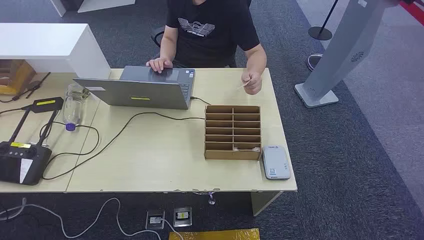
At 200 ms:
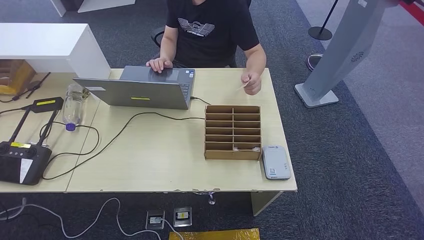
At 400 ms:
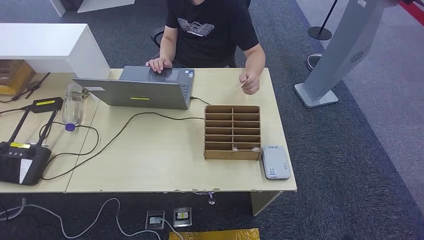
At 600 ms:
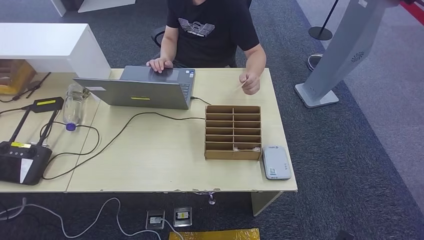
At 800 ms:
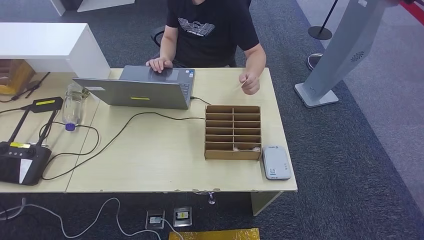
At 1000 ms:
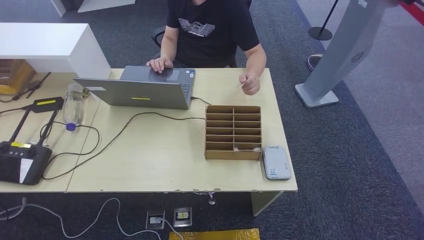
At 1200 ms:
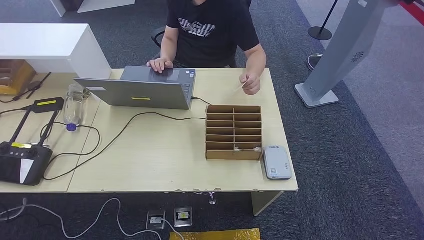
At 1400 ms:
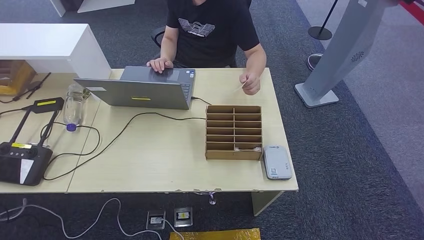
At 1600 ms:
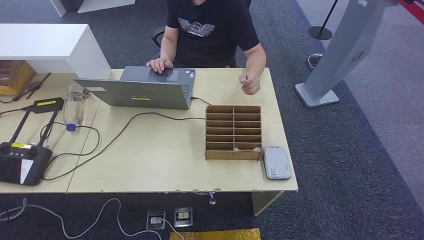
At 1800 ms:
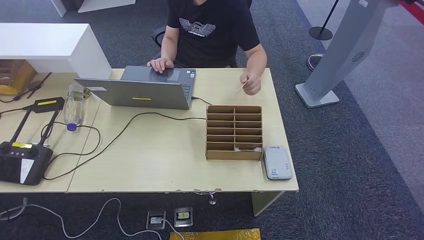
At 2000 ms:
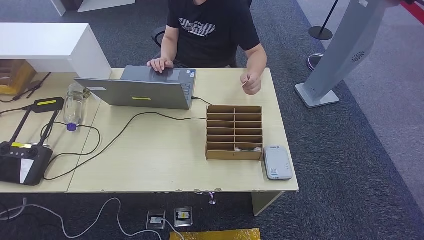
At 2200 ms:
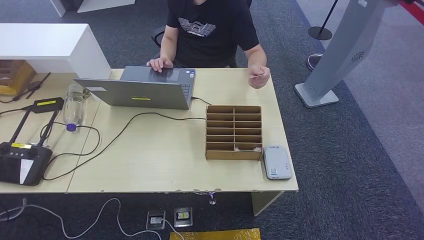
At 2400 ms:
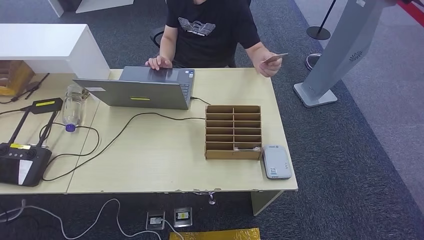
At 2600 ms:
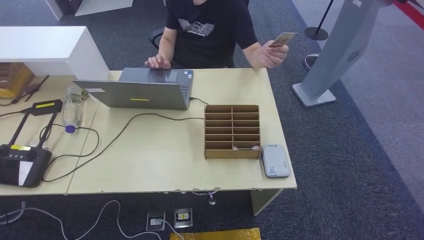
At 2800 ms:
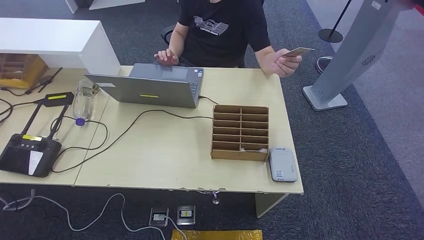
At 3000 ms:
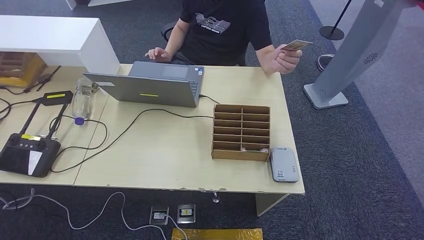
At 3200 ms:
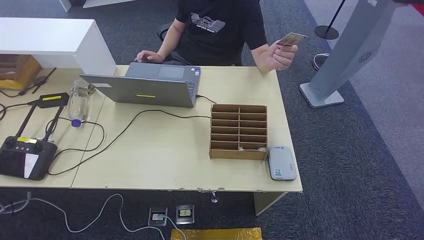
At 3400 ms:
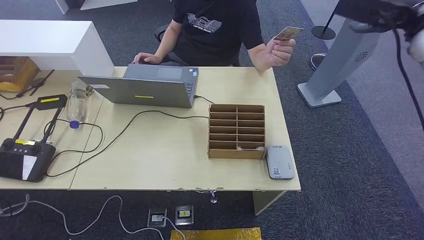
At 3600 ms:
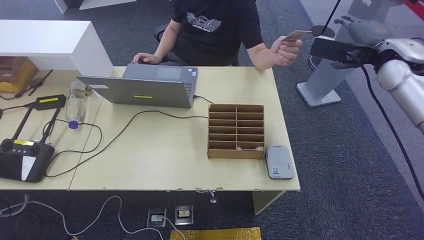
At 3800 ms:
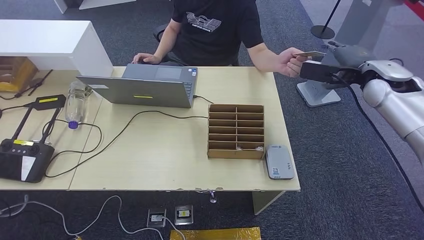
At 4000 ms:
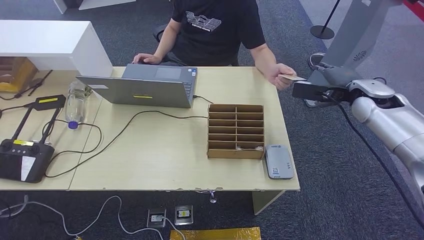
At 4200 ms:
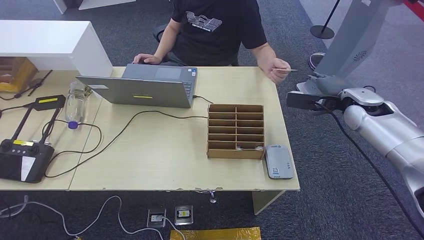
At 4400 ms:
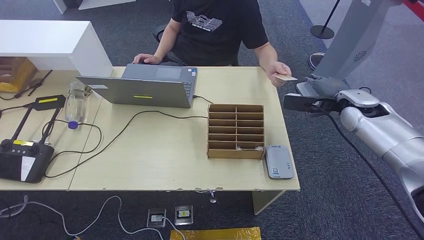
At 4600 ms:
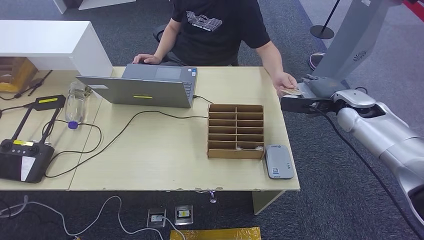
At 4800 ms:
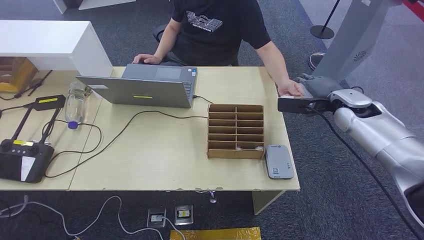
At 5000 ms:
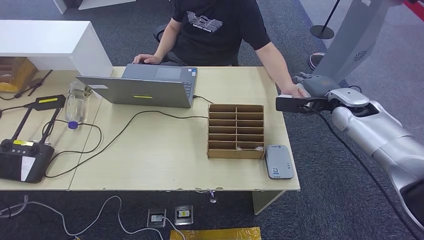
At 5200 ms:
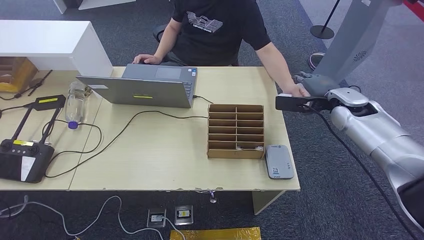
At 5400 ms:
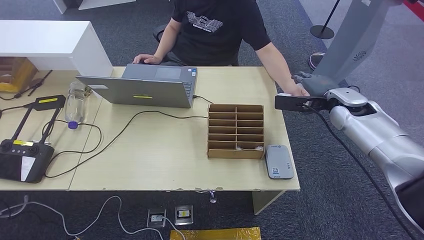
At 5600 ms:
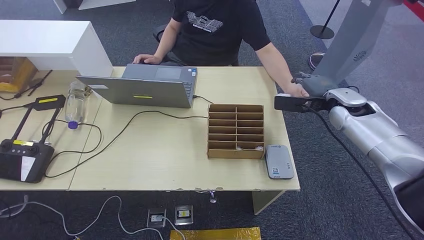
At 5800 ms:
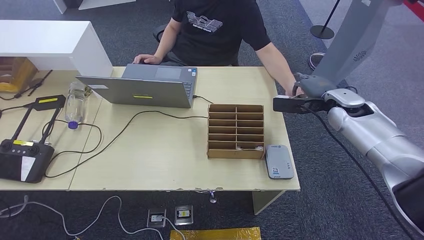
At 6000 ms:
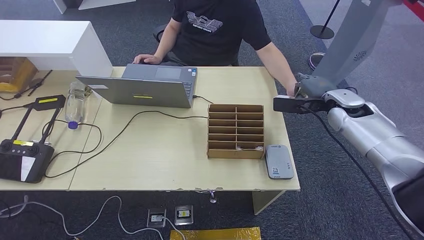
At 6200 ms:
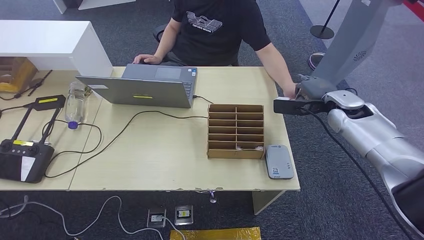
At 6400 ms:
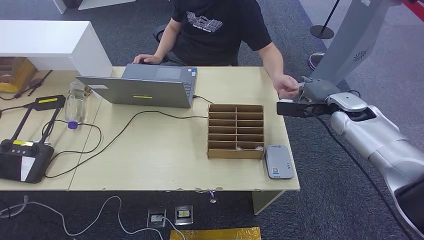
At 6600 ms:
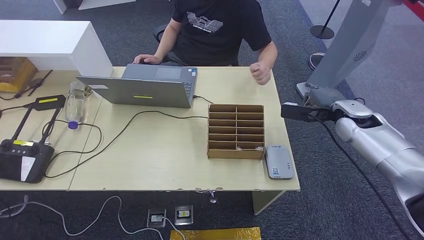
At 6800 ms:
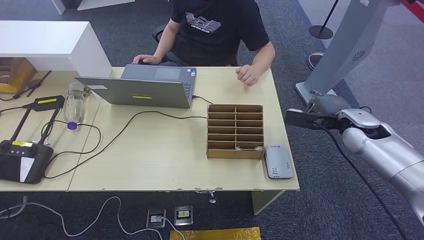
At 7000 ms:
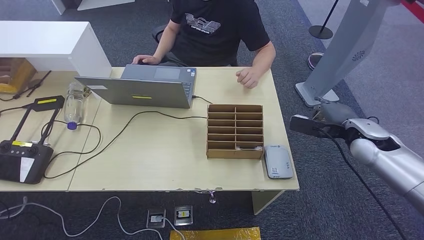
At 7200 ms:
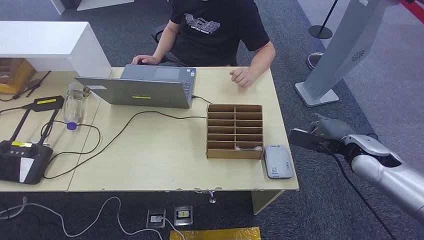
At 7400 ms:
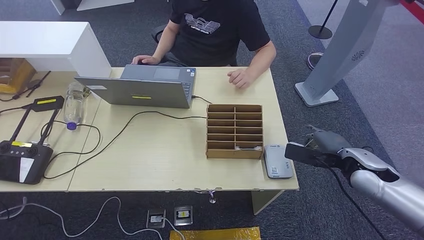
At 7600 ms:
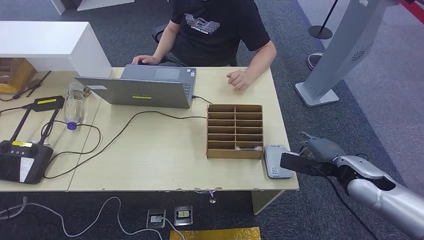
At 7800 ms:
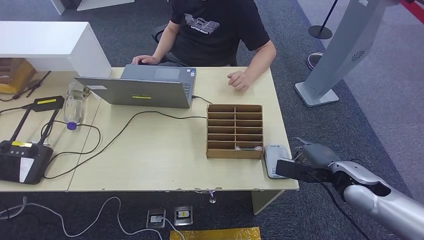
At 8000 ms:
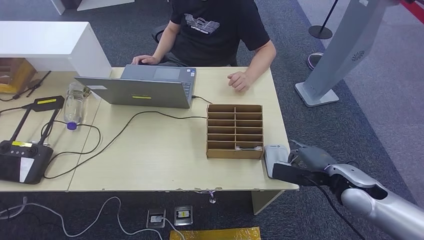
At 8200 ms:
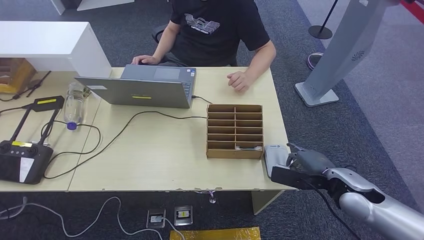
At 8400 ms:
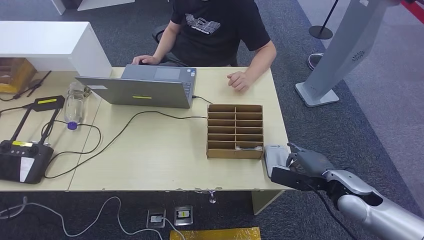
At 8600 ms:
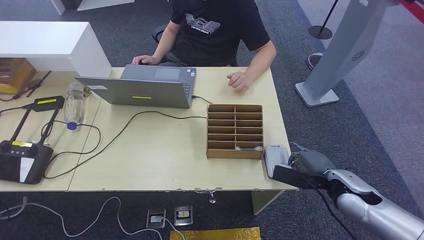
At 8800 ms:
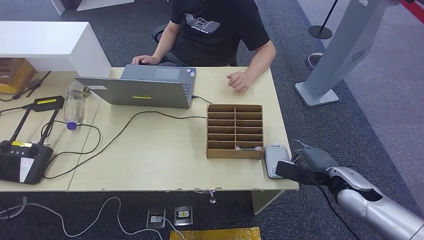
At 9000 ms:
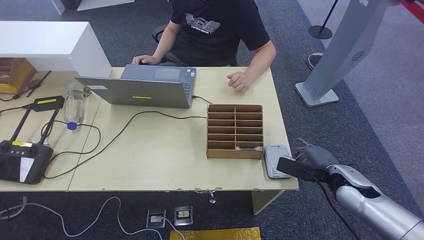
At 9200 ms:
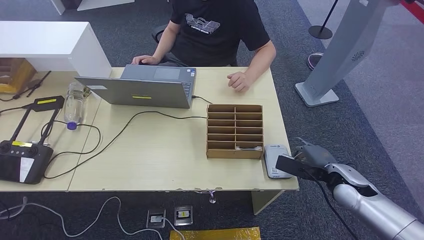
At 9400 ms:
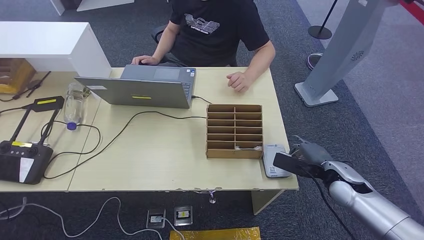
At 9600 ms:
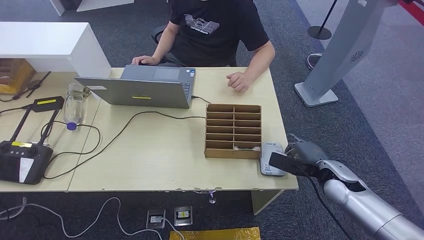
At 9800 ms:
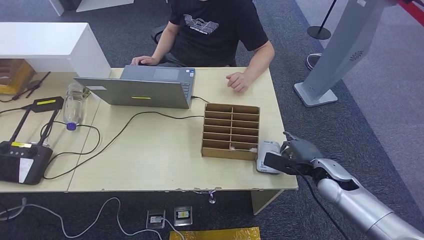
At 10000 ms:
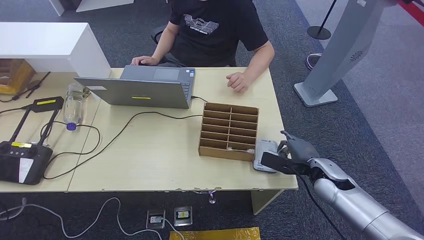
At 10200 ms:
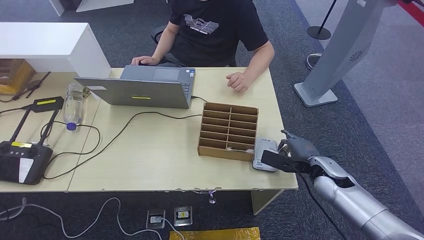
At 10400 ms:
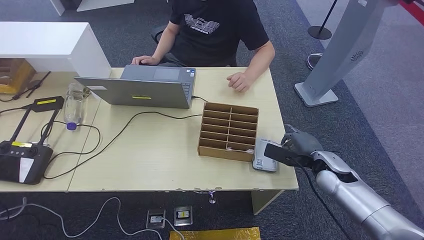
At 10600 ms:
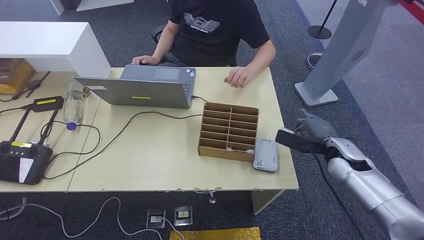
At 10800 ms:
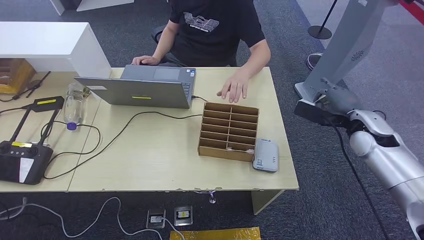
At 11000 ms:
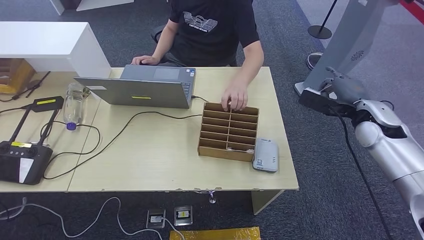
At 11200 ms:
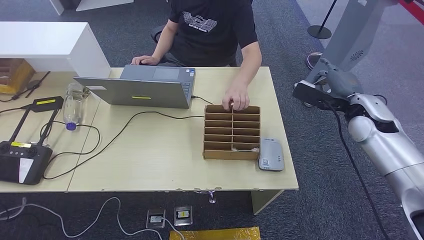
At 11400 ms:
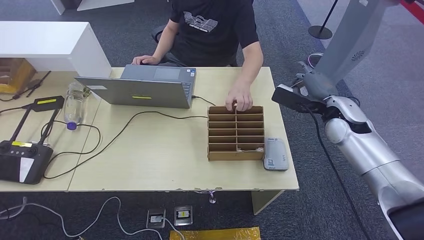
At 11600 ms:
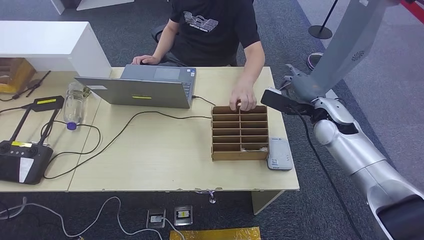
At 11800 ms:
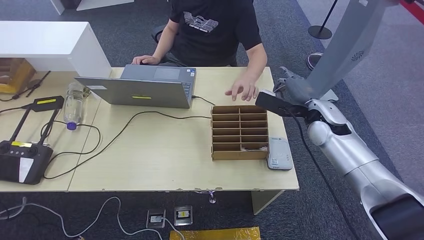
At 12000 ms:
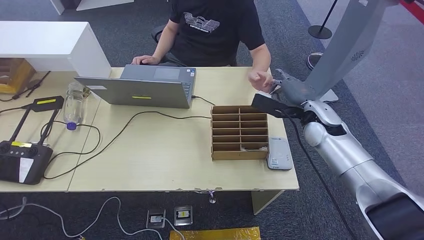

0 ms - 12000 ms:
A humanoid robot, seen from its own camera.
Step, 0 ms - 6400 ms: Take the ID card from the person's hand.
Step, 6600 ms - 8600 ms: Place the ID card on the card reader.
4400 ms - 6000 ms: The hands move only a little.
6000 ms - 7600 ms: The right hand heads backward and downward, covering about 15 cm.
7600 ms - 9000 ms: The right hand travels downward by some 5 cm.
9000 ms - 10400 ms: The right hand shifts by some 5 cm.
10400 ms - 12000 ms: The right hand shifts approximately 15 cm upward and forward.

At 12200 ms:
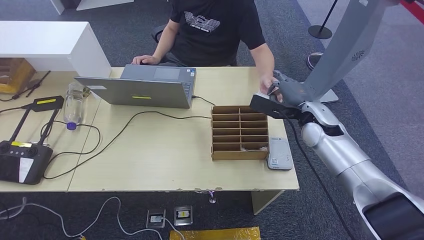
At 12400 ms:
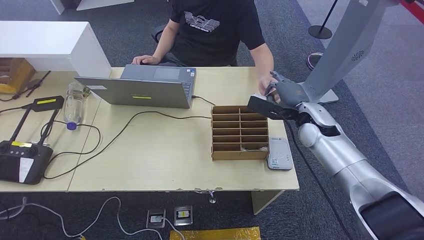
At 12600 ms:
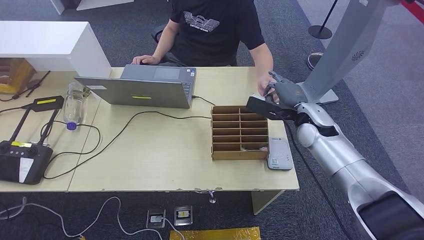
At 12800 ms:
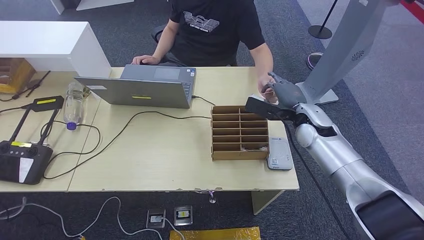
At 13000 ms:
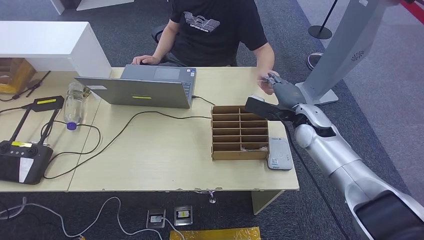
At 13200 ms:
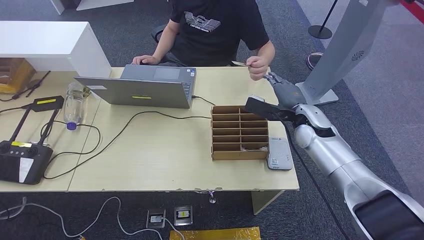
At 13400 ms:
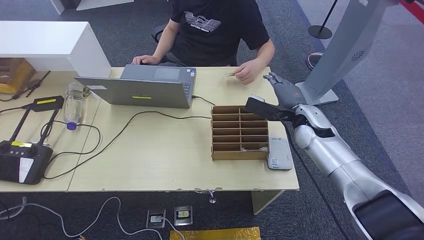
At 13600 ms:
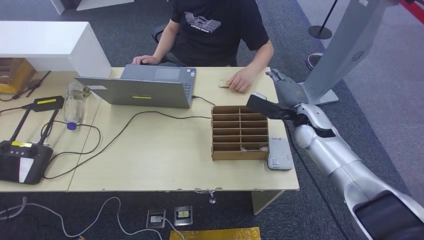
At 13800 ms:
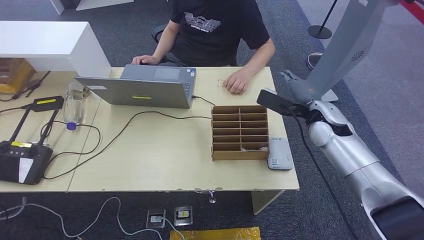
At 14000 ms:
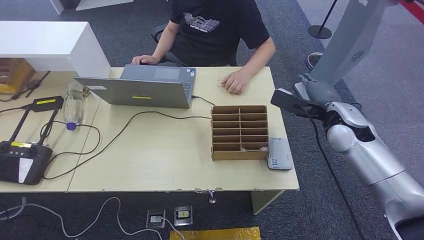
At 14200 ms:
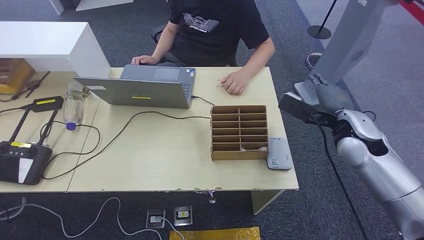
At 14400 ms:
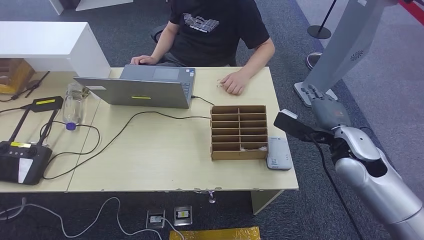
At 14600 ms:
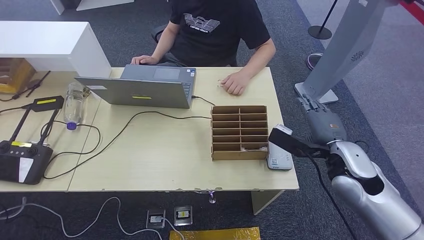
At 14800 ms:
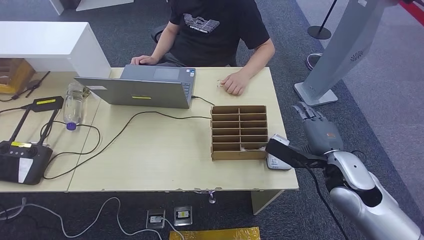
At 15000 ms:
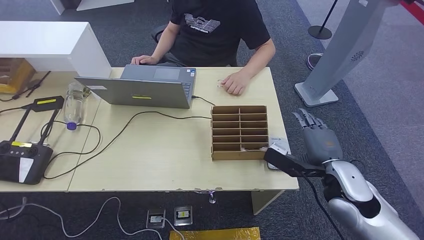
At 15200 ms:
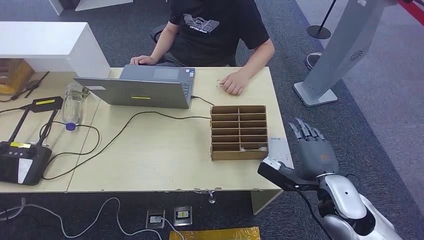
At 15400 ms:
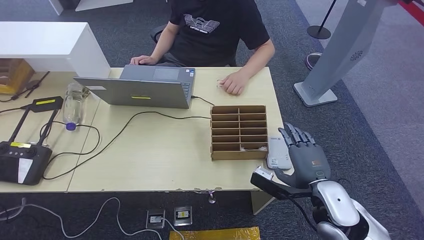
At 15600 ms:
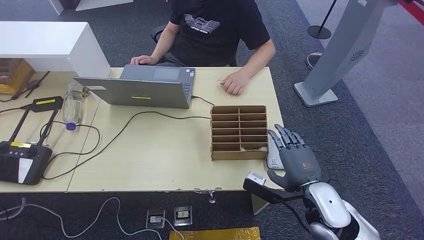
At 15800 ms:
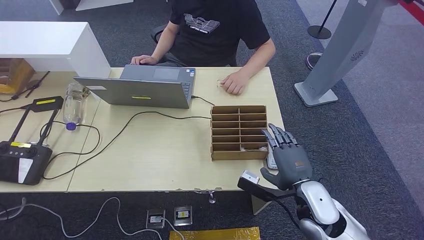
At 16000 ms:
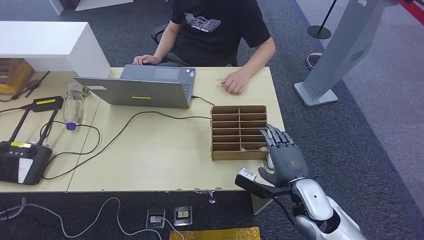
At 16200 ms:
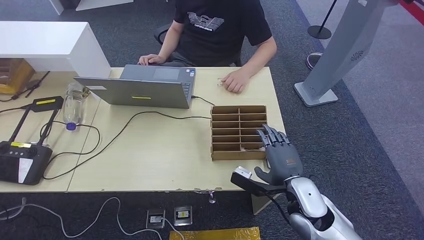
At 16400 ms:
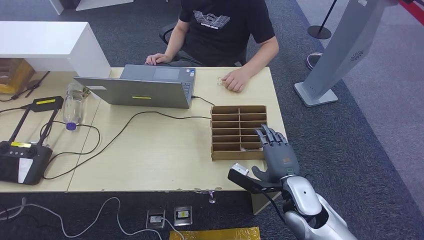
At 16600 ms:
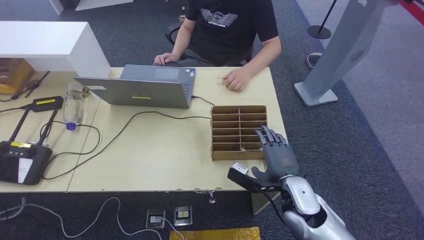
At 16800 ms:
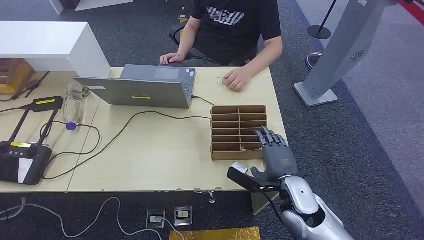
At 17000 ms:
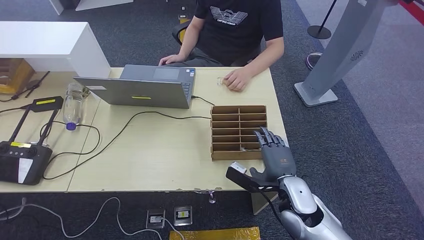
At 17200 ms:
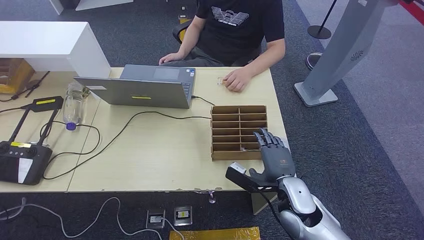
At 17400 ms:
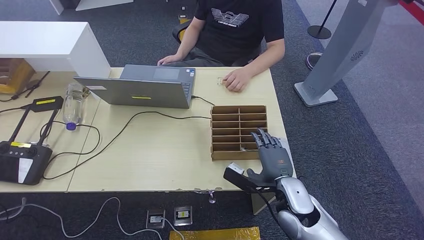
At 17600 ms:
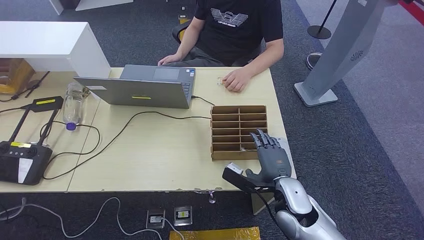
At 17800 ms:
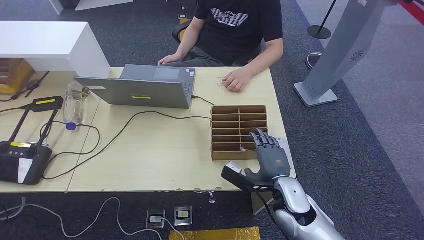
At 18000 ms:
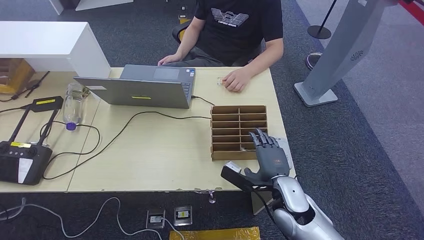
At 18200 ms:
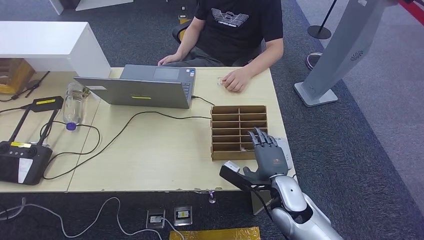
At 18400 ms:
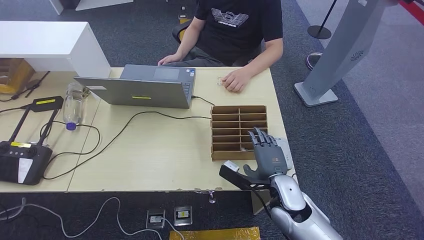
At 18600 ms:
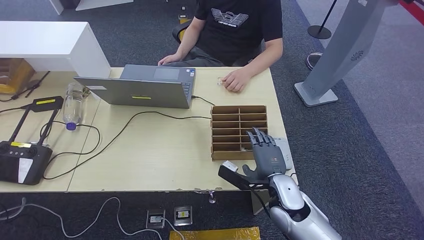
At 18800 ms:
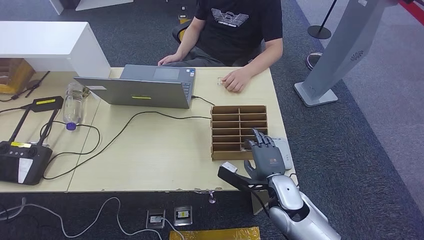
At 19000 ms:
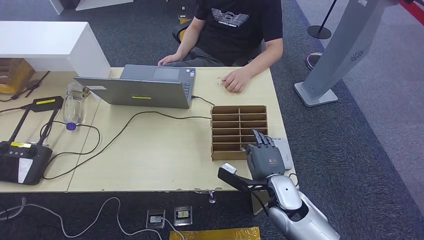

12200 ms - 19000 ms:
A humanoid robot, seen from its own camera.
12200 ms - 13600 ms: The hands make only small movements.
13600 ms - 15000 ms: The right hand travels backward by some 15 cm.
15000 ms - 16200 ms: The right hand moves to the left and downward, about 10 cm.
16200 ms - 19000 ms: There are only small adjustments of the hands.
